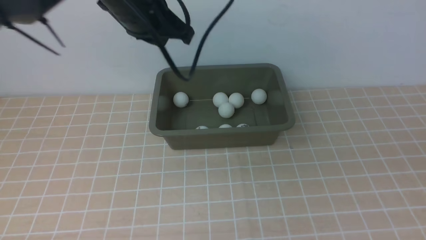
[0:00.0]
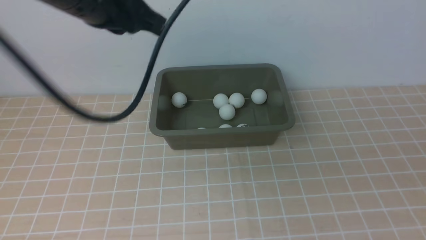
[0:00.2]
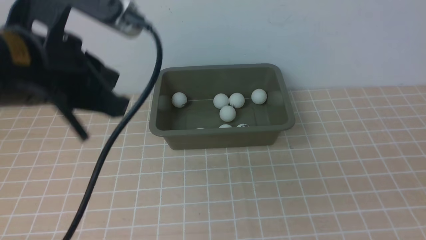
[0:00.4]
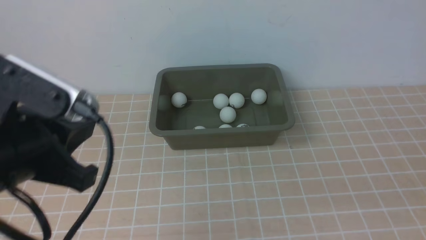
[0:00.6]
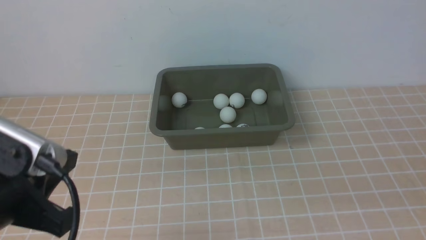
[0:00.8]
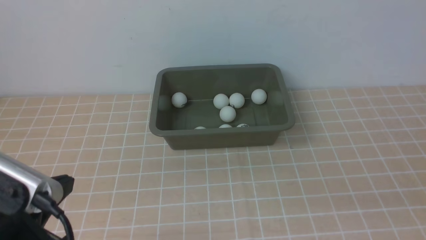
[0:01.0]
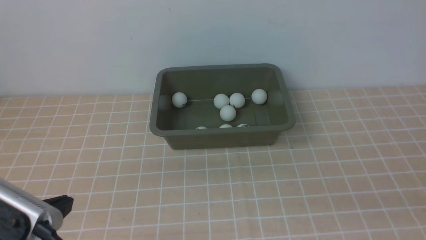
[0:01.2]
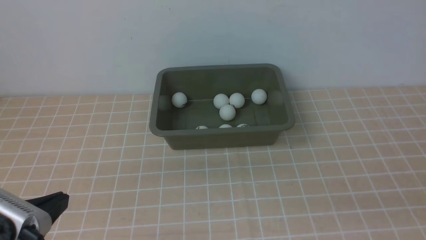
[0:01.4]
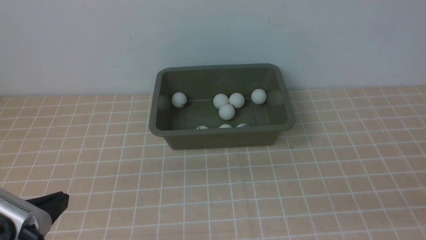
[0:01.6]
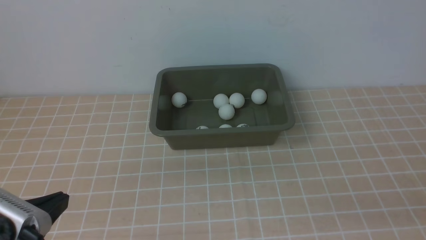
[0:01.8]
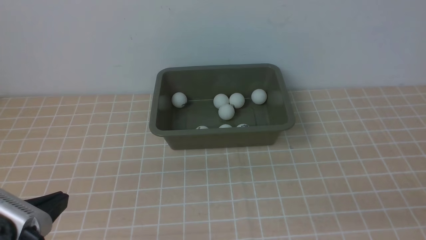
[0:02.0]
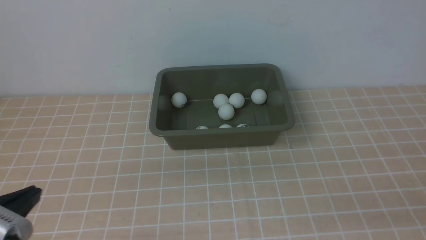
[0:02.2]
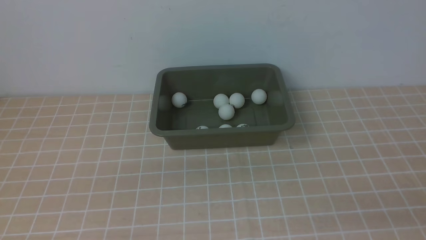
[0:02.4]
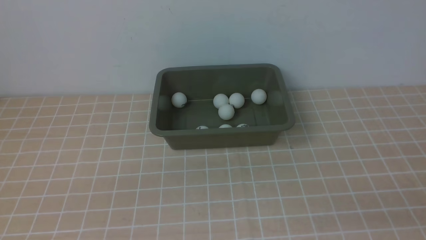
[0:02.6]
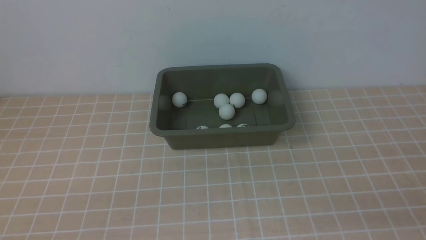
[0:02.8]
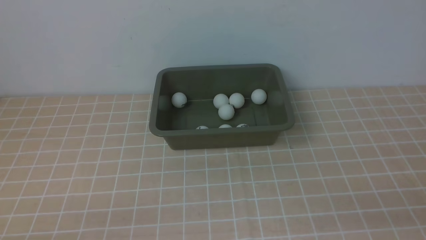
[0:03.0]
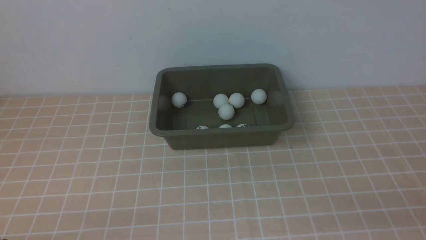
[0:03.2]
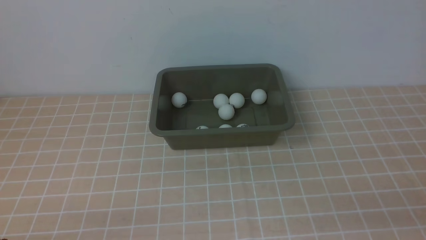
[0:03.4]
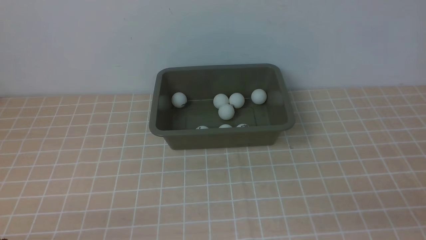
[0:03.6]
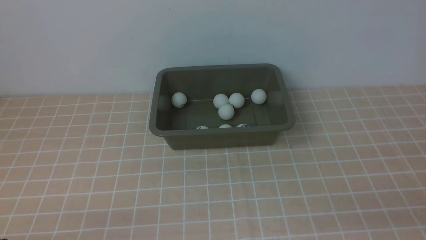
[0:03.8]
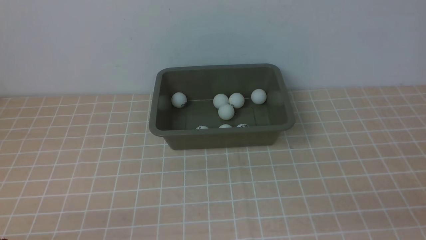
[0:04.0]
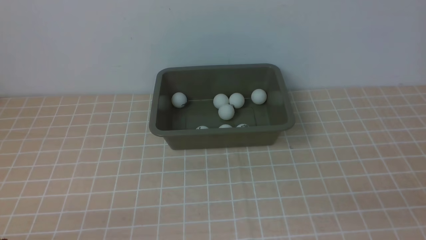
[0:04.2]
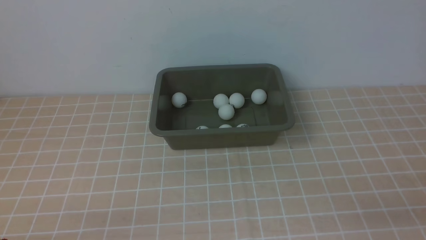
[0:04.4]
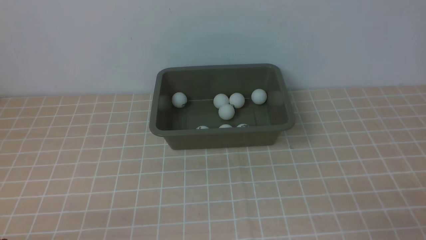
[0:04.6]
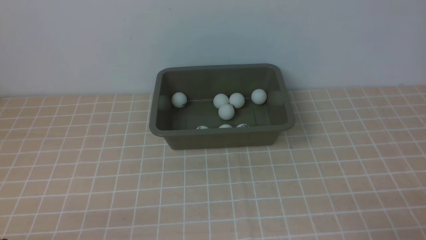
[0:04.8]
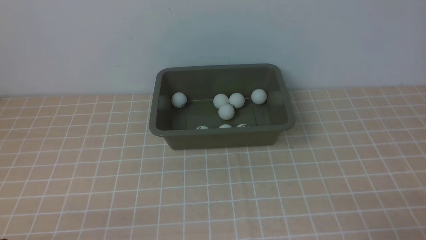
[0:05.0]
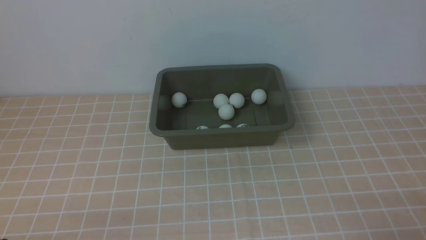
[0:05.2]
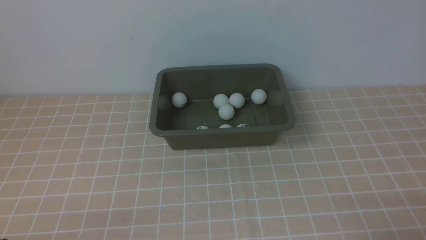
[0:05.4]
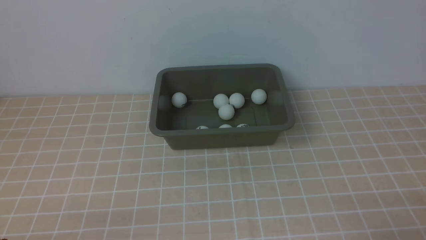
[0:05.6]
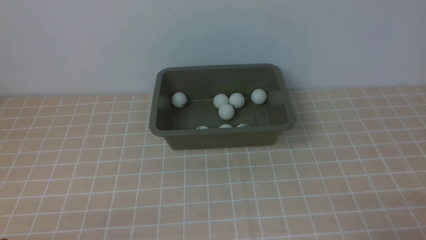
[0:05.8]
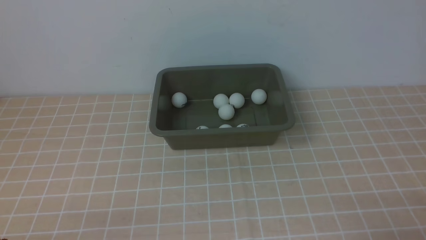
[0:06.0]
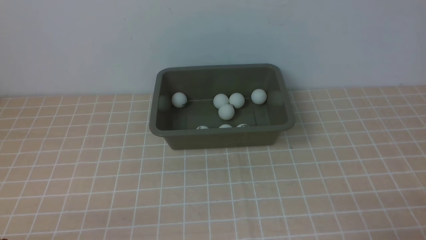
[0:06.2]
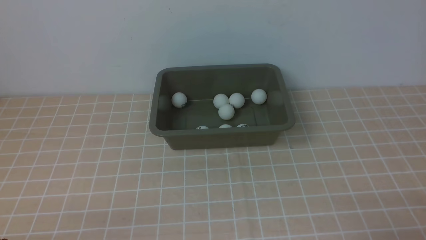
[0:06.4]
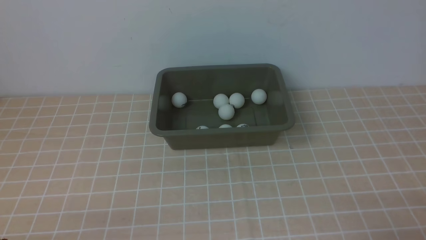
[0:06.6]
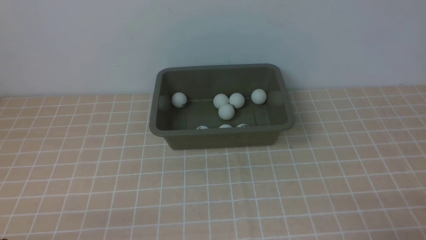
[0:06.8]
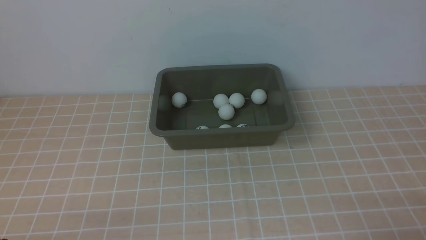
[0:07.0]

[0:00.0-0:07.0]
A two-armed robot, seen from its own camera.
0:00.0 to 0:01.4: The right gripper shifts some 15 cm downward, while the left gripper travels backward and to the left by approximately 30 cm.
0:01.4 to 0:02.8: The left gripper heads backward, covering about 5 cm.
0:05.6 to 0:07.0: The two grippers keep their place.

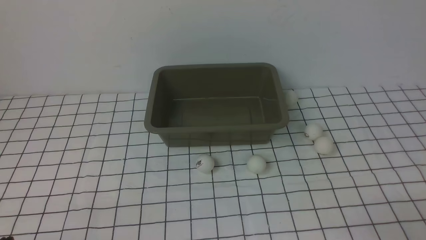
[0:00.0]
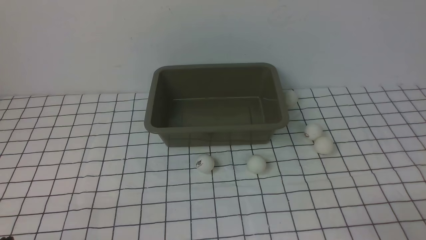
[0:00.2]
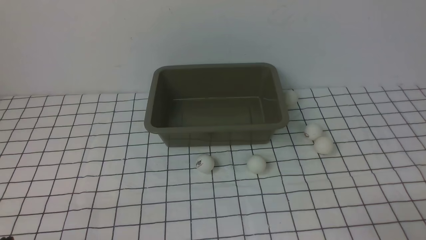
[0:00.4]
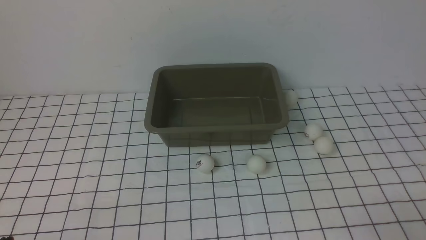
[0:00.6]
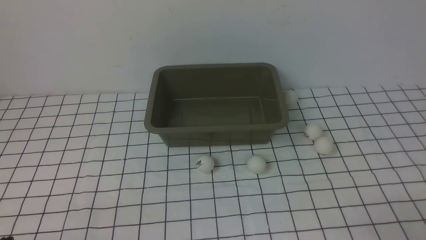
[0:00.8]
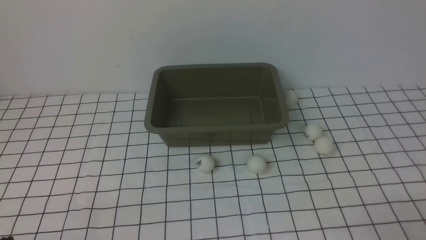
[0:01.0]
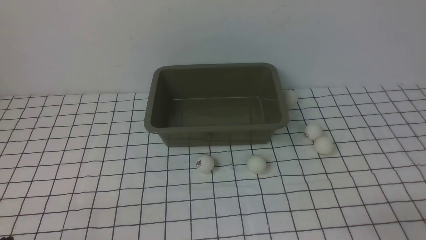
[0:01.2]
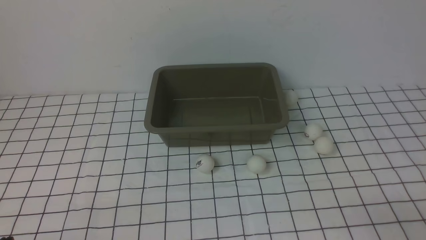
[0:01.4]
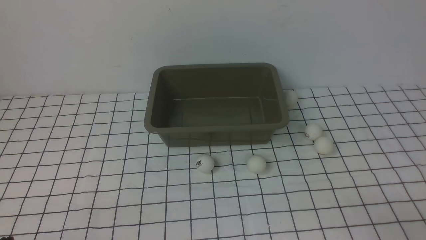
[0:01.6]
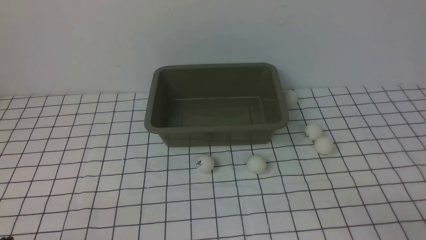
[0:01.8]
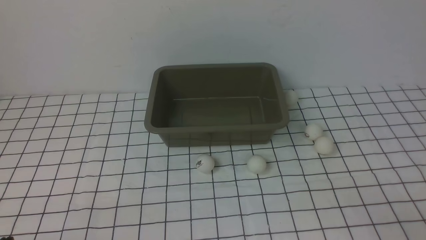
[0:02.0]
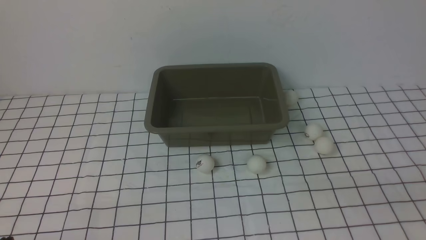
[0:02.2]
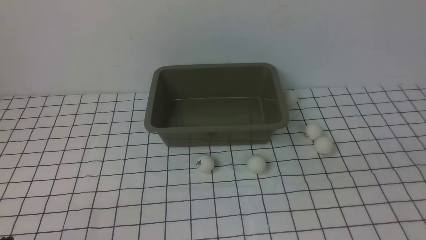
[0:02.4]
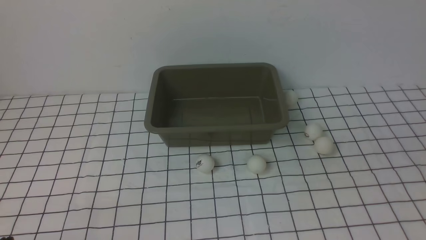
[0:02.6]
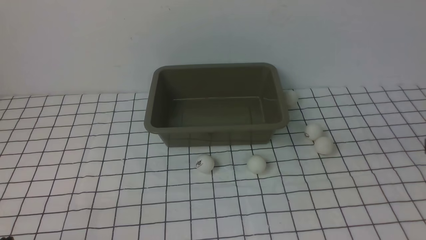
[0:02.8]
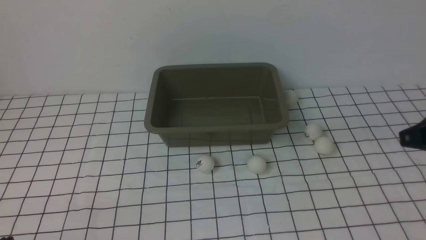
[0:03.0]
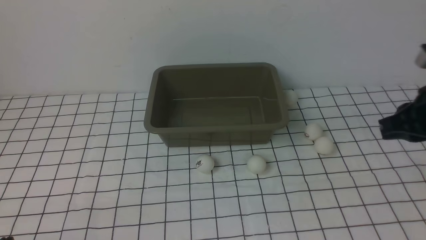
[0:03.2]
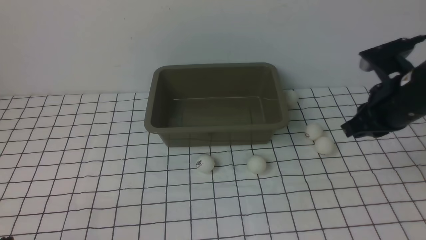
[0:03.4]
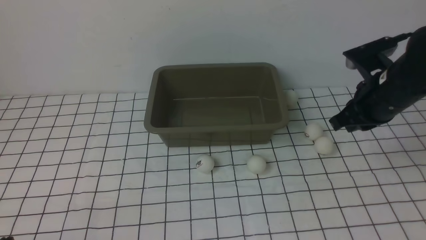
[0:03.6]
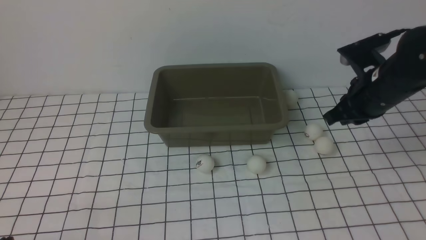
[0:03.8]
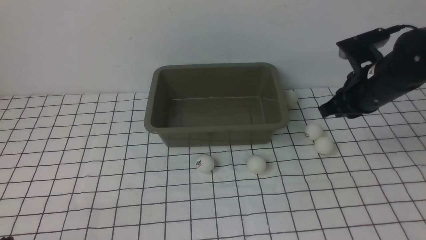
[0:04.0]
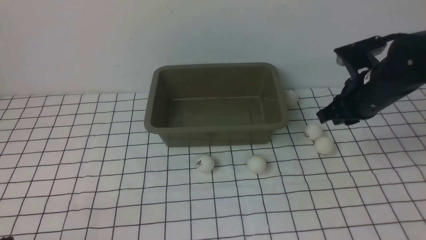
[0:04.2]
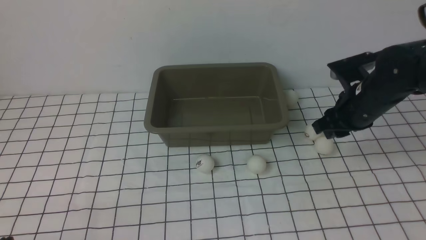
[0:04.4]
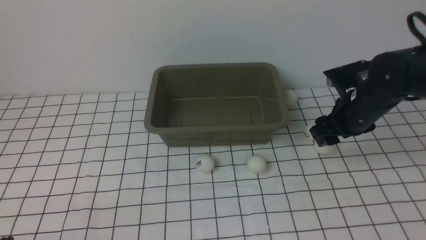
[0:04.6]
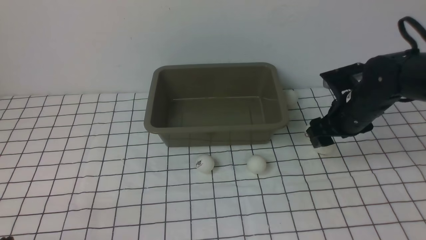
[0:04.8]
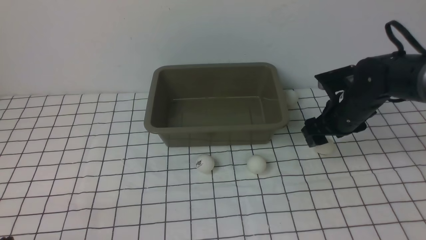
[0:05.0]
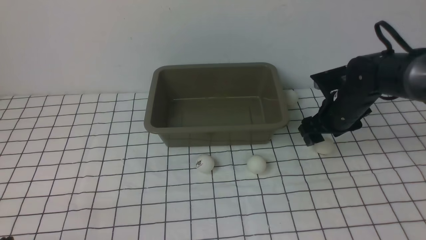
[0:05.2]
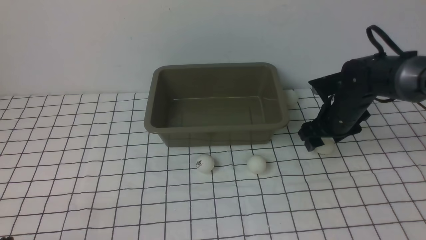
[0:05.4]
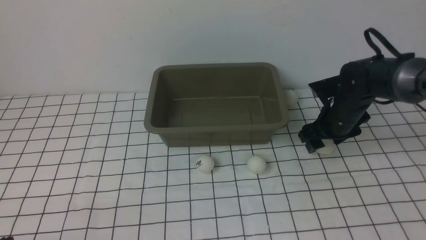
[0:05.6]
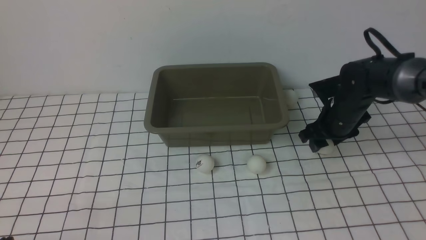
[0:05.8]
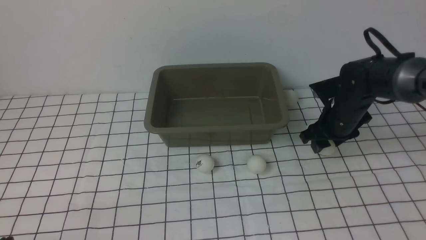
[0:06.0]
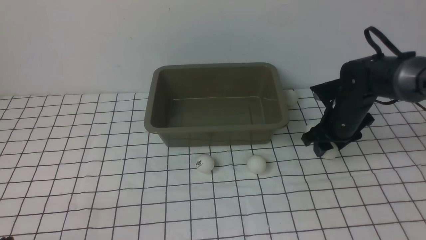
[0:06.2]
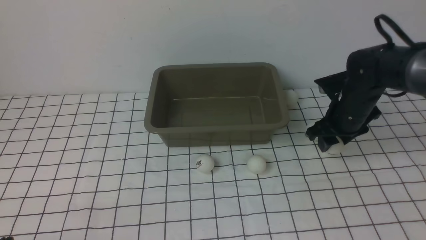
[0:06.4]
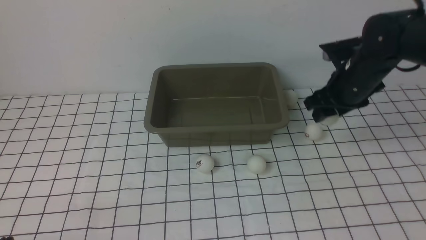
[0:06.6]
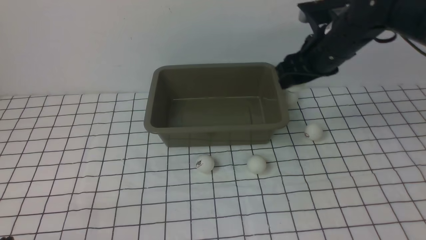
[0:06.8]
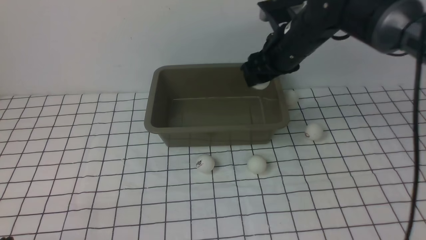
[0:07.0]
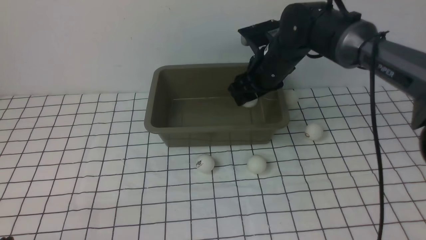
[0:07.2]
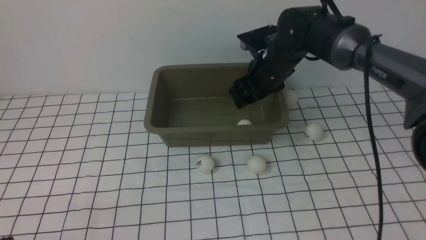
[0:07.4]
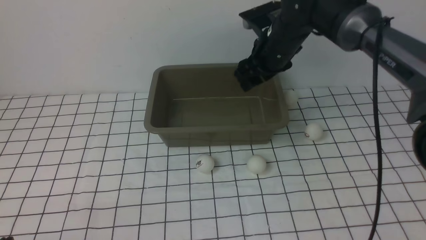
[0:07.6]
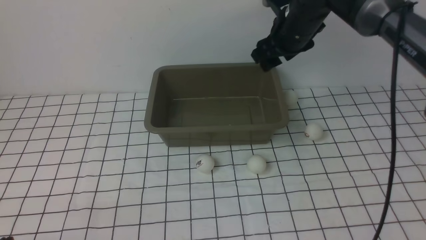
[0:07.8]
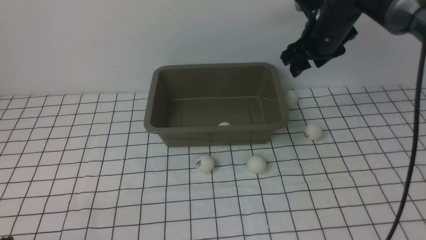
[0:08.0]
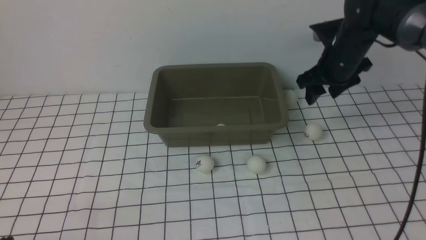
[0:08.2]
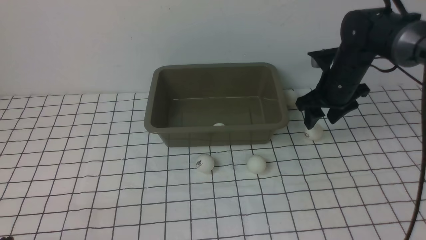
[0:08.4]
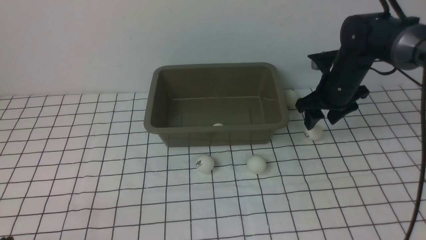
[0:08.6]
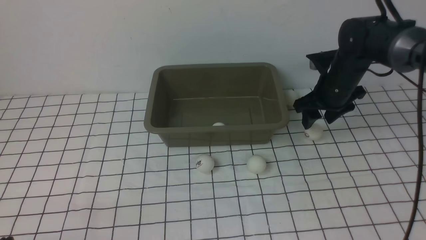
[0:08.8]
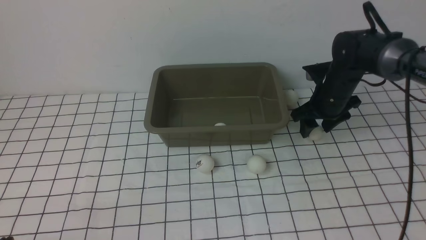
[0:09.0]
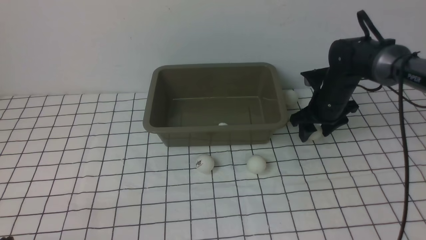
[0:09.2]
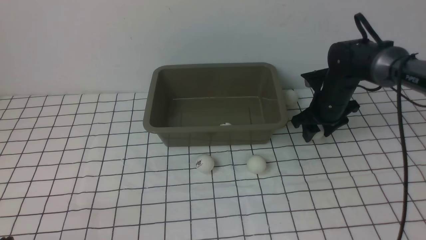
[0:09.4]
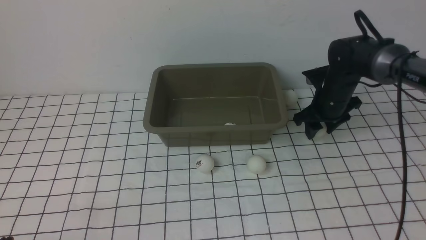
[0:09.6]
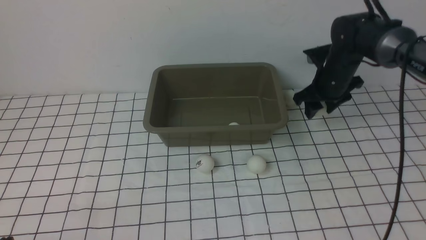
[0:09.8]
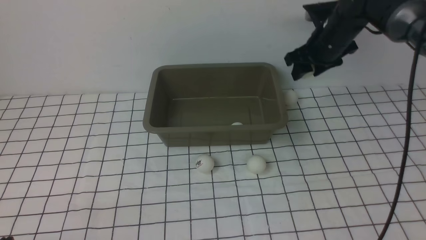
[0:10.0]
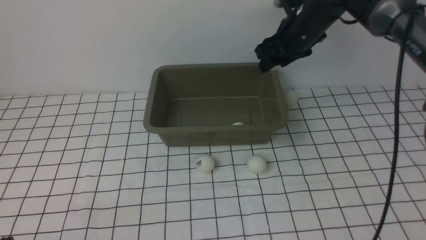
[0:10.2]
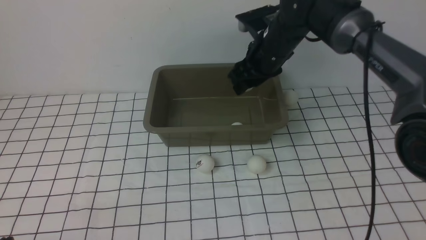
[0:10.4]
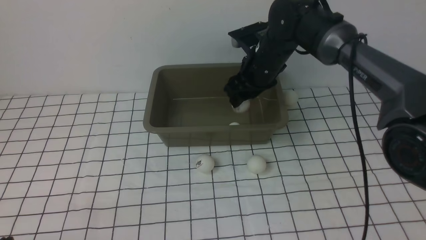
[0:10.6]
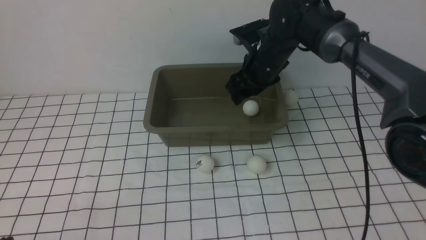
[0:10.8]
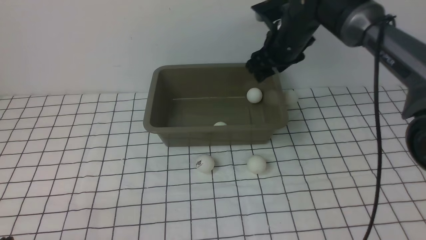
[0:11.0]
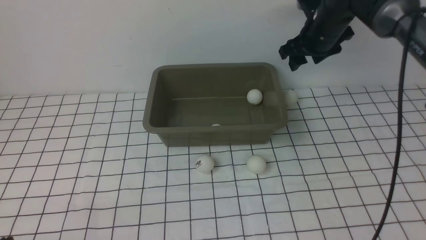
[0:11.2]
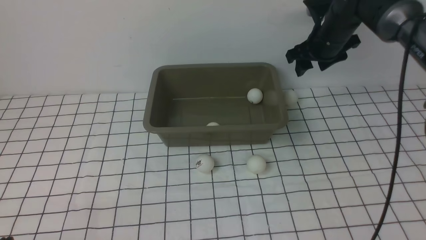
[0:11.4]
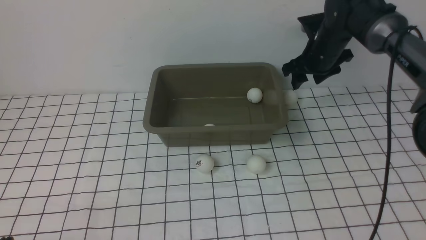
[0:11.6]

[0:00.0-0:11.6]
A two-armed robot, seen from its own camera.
Step, 0:00.0 to 0:06.4: use the right arm to clamp the table tennis ball closest to it.
Step, 0:06.8 to 0:07.4: use the right arm to put the table tennis ball into the box.
Step, 0:07.6 to 0:10.0: use the right arm to clamp the table tennis ball closest to it.
Step, 0:10.2 to 0:10.8: use the right arm to put the table tennis ball into the box.
0:02.8 to 0:04.4: The right gripper moves forward and downward, roughly 25 cm, and opens up.
0:04.4 to 0:05.8: The right gripper goes roughly 5 cm downward, and opens its fingers.
0:05.8 to 0:07.2: The right gripper travels to the left and upward by about 15 cm.
0:07.2 to 0:08.8: The right gripper goes approximately 10 cm to the right and downward.
0:08.8 to 0:10.2: The right gripper shifts about 10 cm to the left and upward.
0:10.2 to 0:11.6: The right gripper is displaced to the right by roughly 5 cm.
